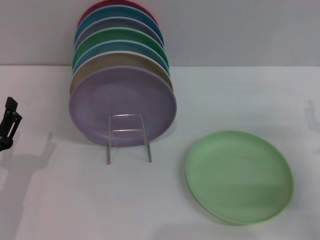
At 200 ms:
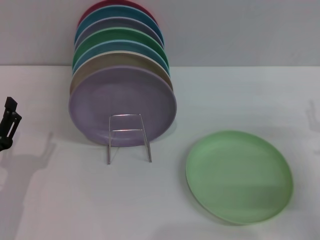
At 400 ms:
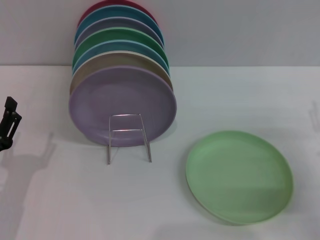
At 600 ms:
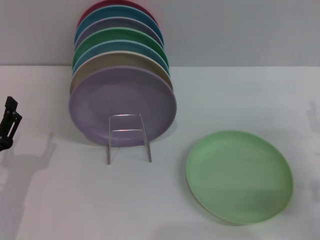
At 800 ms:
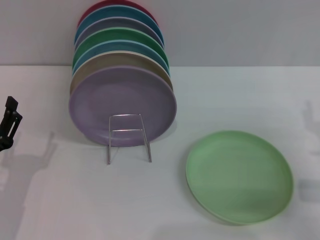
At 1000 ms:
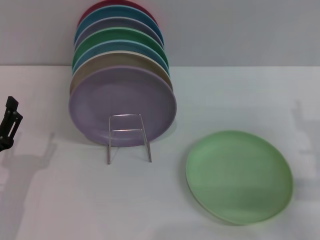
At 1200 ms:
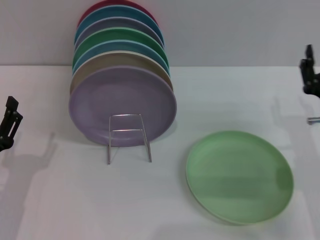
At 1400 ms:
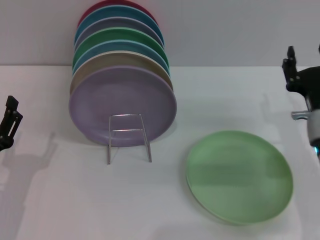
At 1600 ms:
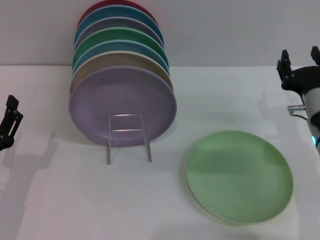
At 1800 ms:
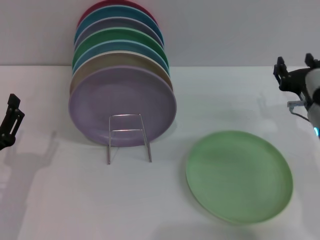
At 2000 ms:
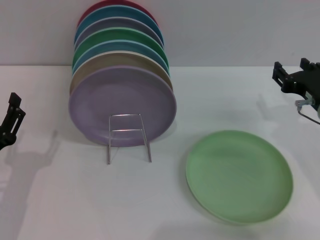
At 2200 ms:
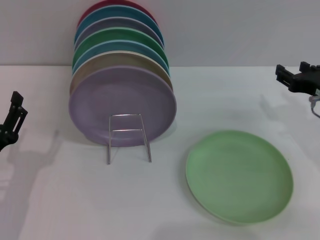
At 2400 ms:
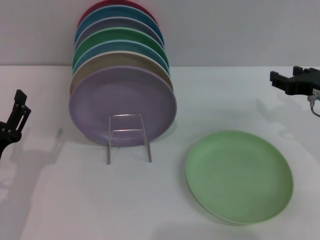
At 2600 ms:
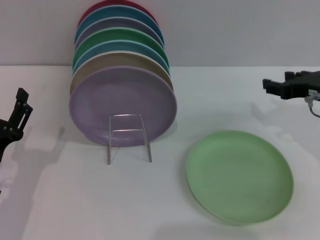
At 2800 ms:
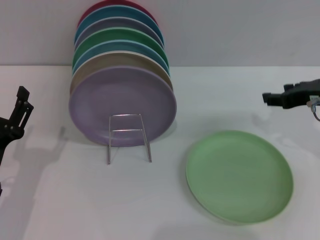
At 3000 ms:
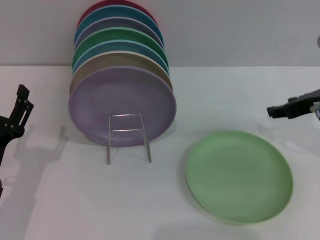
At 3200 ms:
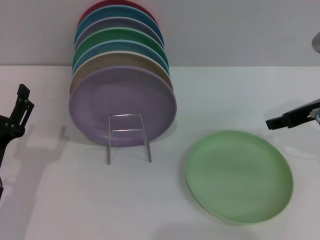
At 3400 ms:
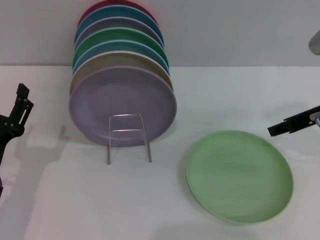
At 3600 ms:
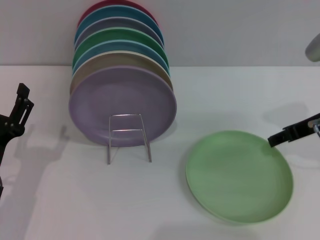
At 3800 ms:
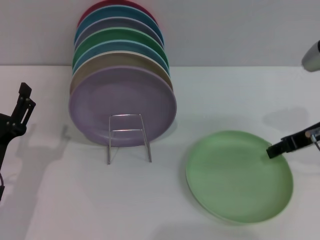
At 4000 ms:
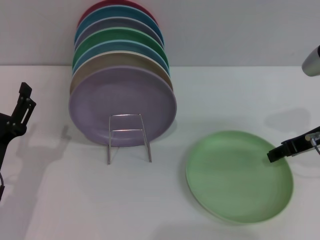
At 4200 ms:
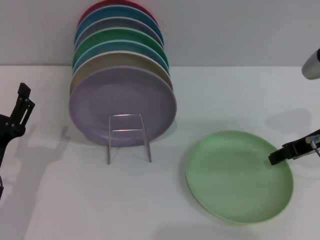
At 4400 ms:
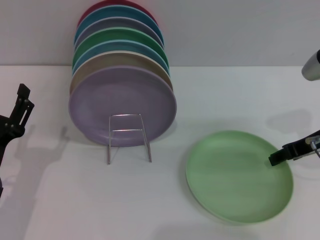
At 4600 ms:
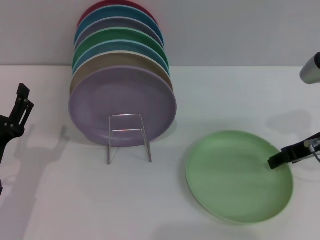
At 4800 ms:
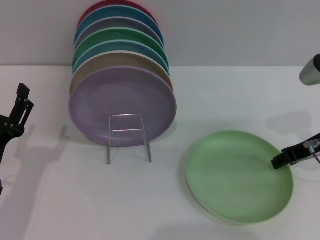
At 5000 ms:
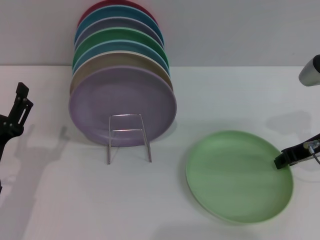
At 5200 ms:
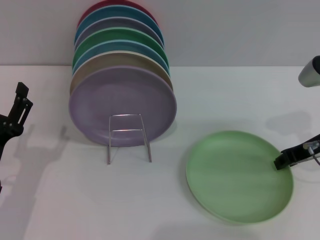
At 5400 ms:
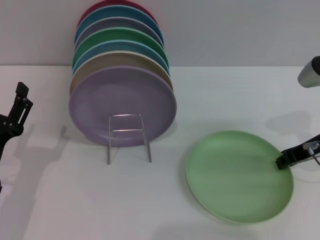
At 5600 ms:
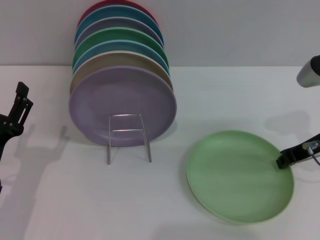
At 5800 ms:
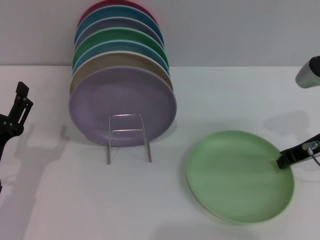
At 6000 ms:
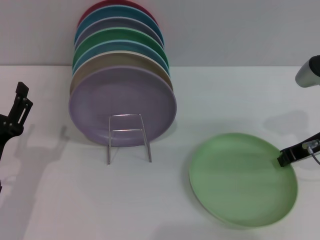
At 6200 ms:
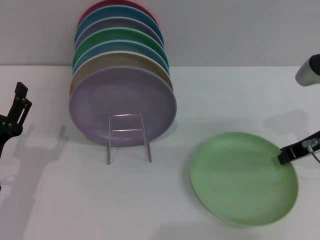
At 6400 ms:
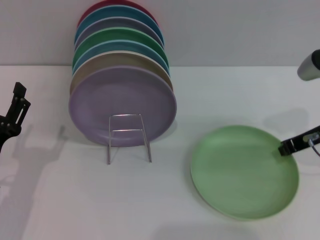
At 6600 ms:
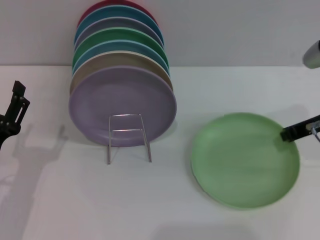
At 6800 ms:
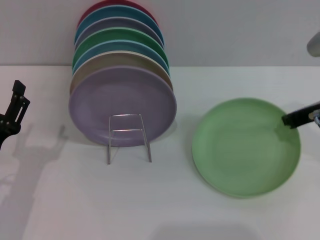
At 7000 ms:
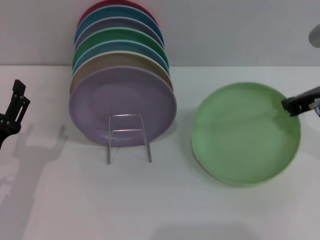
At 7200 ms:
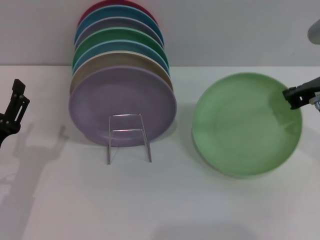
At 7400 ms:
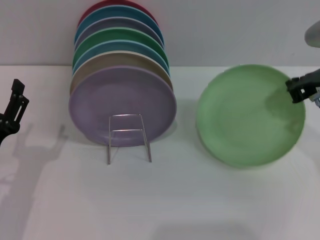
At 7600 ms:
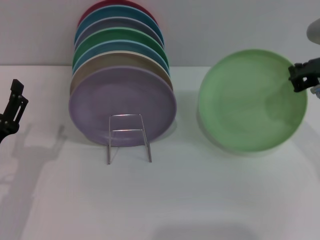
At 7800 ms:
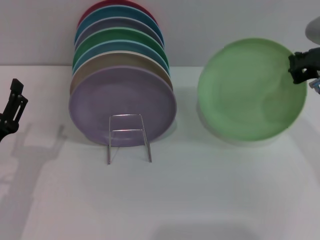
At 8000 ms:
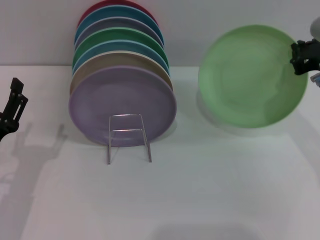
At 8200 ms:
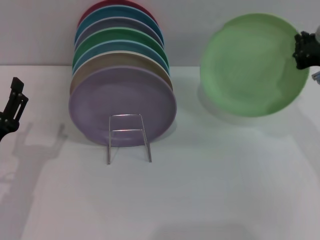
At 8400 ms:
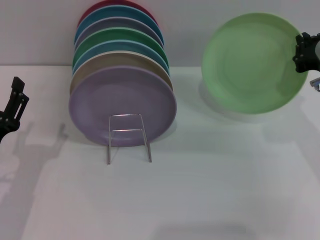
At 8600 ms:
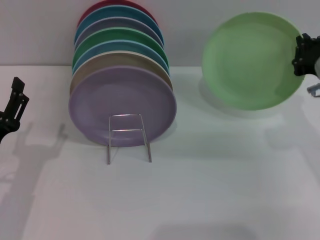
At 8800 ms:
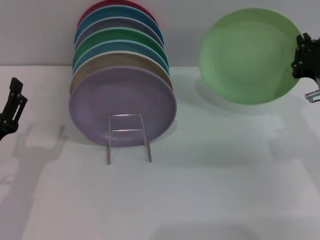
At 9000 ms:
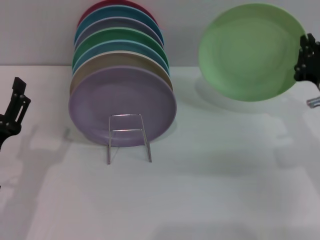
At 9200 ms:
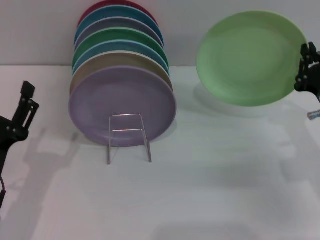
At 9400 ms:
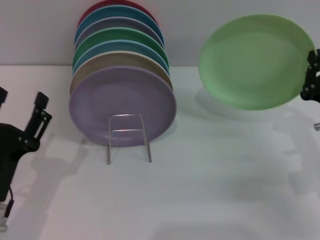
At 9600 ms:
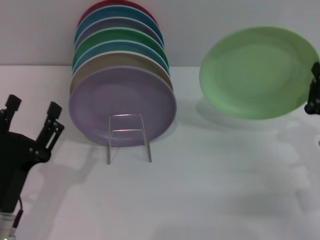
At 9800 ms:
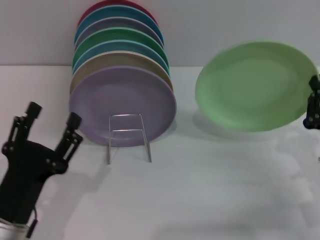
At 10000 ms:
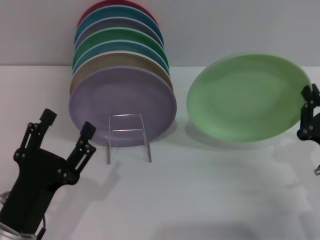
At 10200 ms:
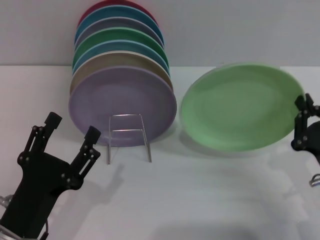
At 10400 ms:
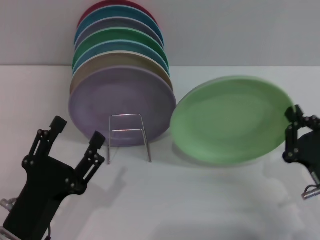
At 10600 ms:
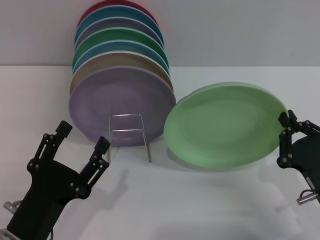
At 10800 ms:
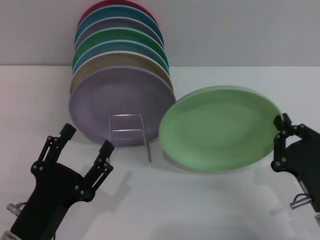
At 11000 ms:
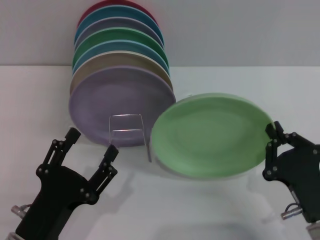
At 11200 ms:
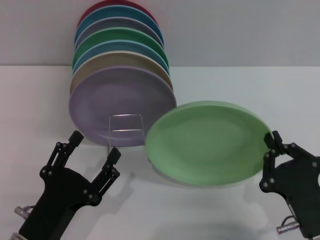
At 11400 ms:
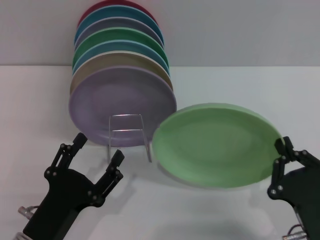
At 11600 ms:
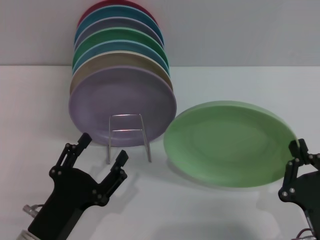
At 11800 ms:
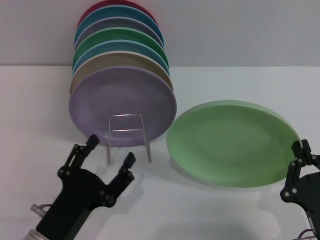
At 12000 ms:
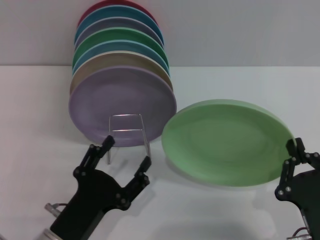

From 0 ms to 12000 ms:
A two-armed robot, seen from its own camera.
Task of the whole recording: Grip the plate with one hand, pass it to the other, then set it on the shelf.
Step, from 0 ms to 7000 ms: Pick up the plate with the right gripper.
From 0 ms to 1600 ms: The right gripper is displaced to the left by about 10 cm.
From 1600 ms to 3000 ms: The right gripper moves upward, approximately 10 cm.
From 4400 ms to 6000 ms: The right gripper closes its fingers.
From 6000 ms to 7600 ms: The right gripper travels upward by roughly 5 cm.
From 7600 ms to 9000 ms: The right gripper is displaced downward by about 10 cm.
From 9000 ms to 10400 ms: The right gripper travels backward and downward by roughly 15 cm. The left gripper moves backward and to the right, some 10 cm.
From 10400 ms to 12000 ms: The right gripper is displaced backward and to the left by roughly 10 cm.

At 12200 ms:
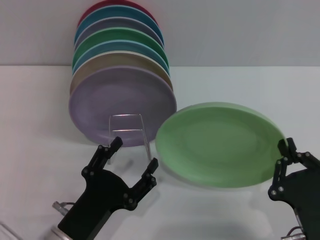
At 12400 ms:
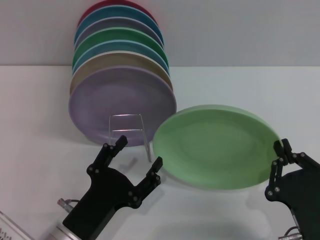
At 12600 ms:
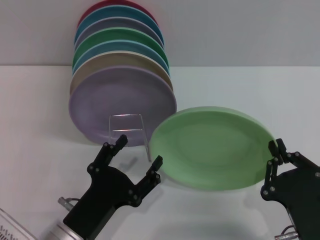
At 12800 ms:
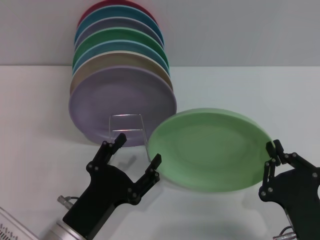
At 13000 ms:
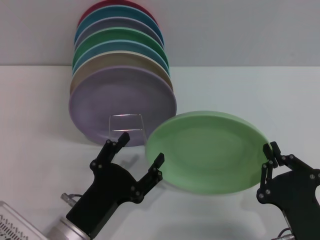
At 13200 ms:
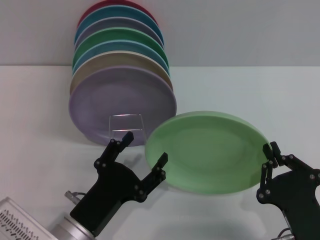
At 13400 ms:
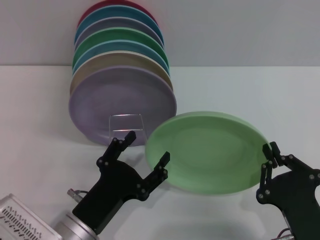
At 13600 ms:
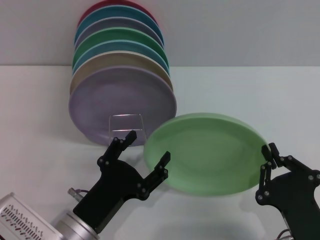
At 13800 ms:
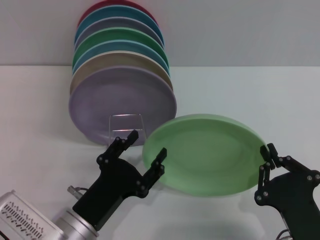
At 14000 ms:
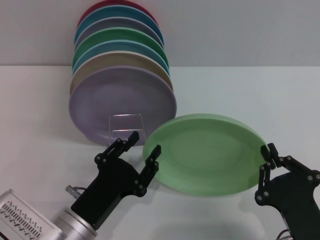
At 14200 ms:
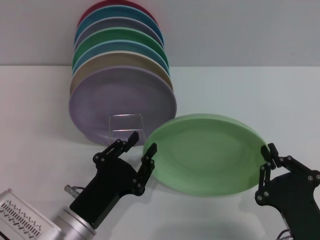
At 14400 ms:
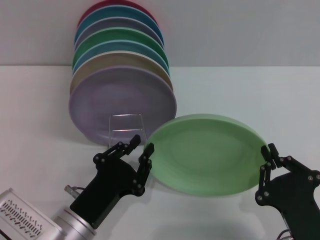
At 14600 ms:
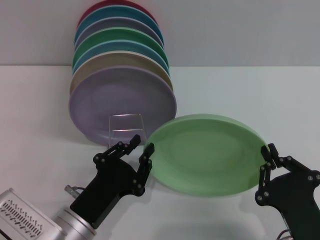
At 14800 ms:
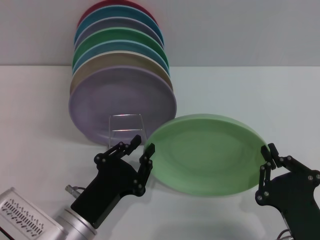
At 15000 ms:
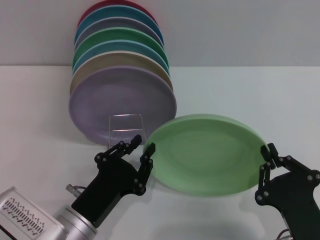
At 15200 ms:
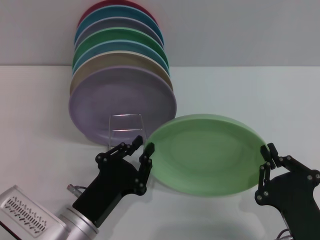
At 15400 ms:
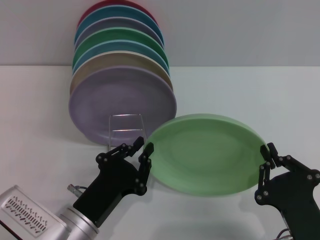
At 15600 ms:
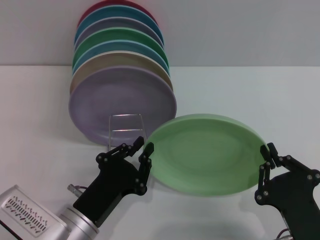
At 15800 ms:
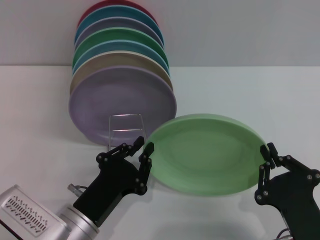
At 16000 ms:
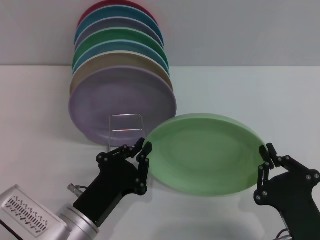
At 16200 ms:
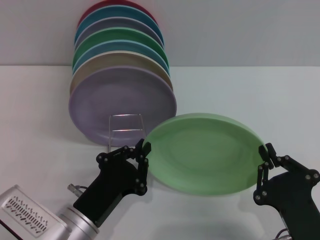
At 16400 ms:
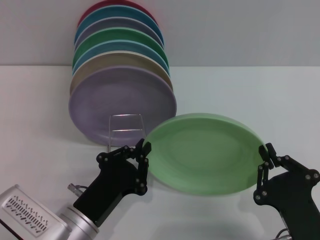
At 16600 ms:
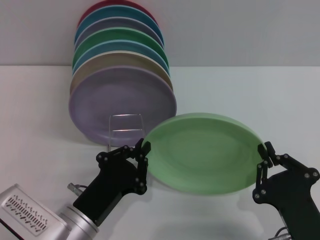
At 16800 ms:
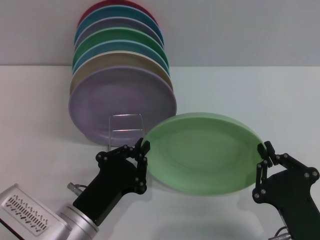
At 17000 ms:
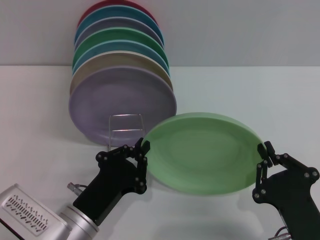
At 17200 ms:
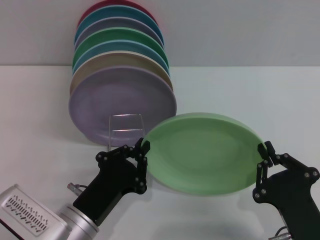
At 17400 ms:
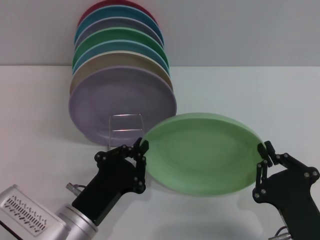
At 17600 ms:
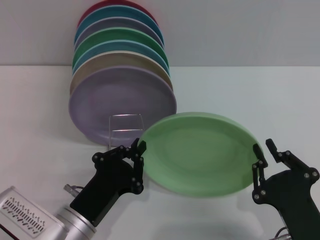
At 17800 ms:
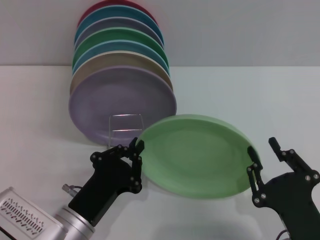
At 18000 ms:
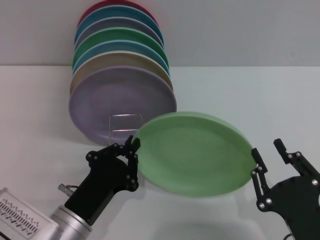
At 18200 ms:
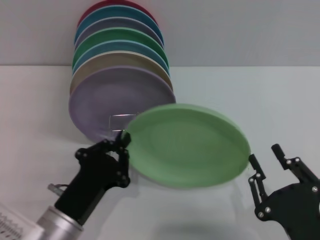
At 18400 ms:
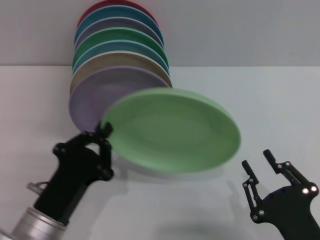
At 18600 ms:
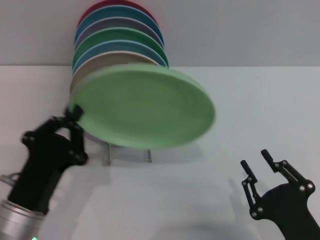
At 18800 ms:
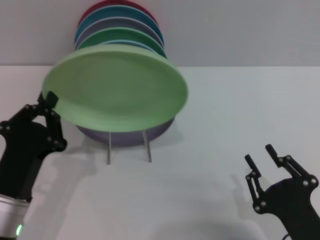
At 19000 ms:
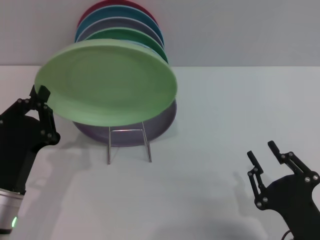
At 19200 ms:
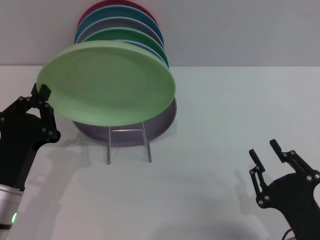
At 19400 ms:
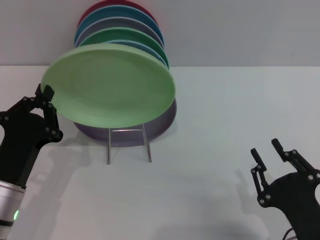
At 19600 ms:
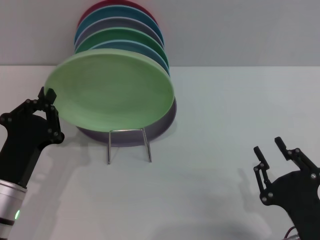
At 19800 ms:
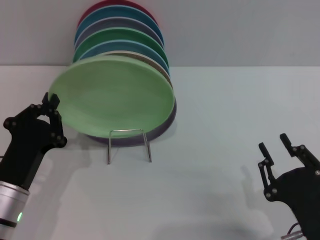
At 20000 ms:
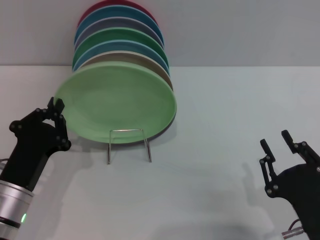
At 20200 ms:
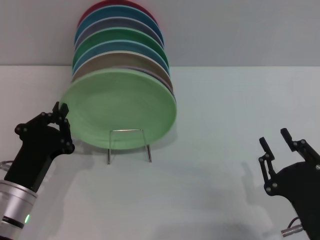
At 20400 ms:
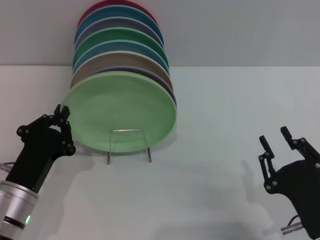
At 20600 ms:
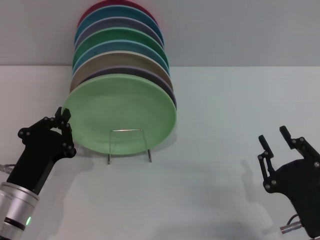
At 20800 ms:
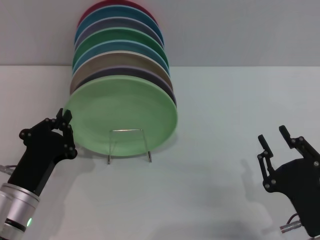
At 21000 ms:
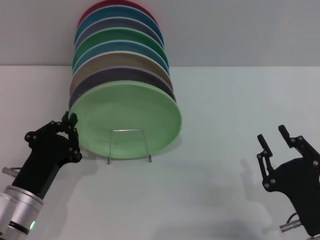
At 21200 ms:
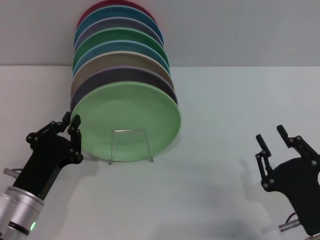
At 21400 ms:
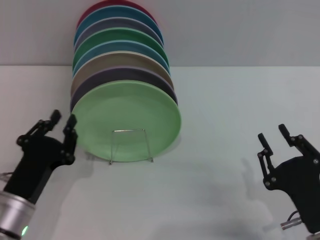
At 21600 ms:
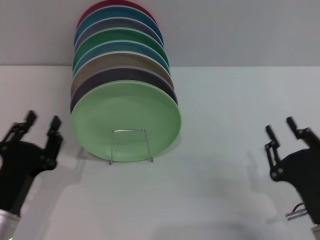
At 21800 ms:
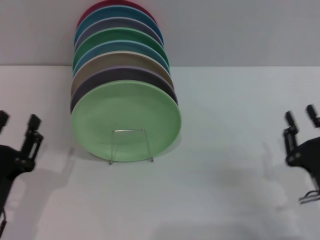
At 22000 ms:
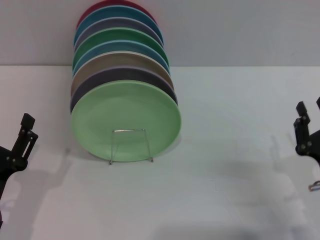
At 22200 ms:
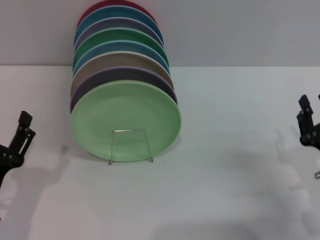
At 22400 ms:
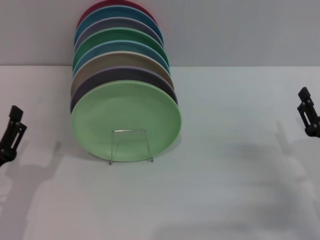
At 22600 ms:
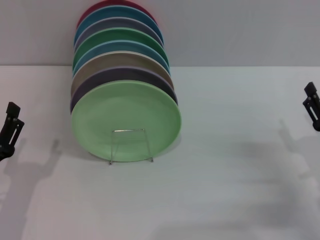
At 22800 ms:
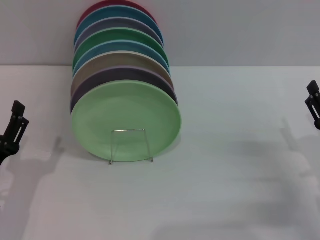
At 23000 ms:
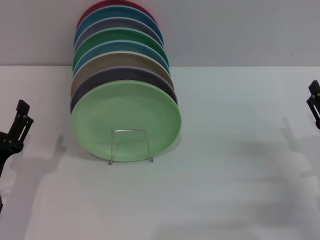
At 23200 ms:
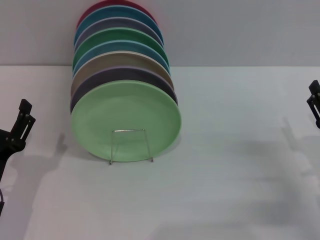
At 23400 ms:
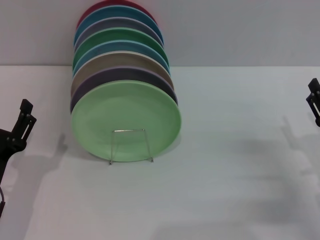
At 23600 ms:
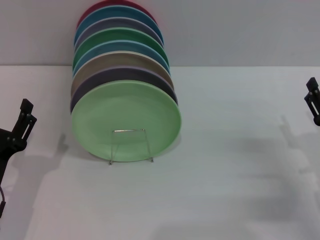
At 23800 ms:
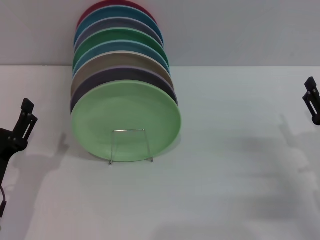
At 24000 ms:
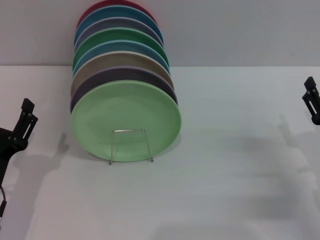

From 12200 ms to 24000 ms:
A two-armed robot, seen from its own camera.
Task of the whole recording: Grip the plate with one hand, pass it to the other, then set it on the shelf.
Step, from 12200 ms to 18400 ms: Pass the plate from the right gripper to the left gripper.
Step, from 18600 ms to 21800 ms: Place the plate on the shelf with the left gripper.
From 12200 ms to 13600 ms: The grippers stay close to where they were, moving slightly.
From 13600 ms to 15200 ms: The left gripper closes its fingers.
From 15200 ms to 16600 ms: Both grippers stay put.
From 16600 ms to 18200 ms: The right gripper opens.
From 18200 ms to 19600 ms: The left gripper heads to the left, covering roughly 5 cm.
From 19600 ms to 21000 ms: The grippers make only small movements.
From 21000 ms to 22600 ms: The left gripper changes place by approximately 5 cm, and opens, while the right gripper travels forward and to the right by approximately 10 cm.
From 22600 ms to 24000 ms: There are only small adjustments of the grippers.
